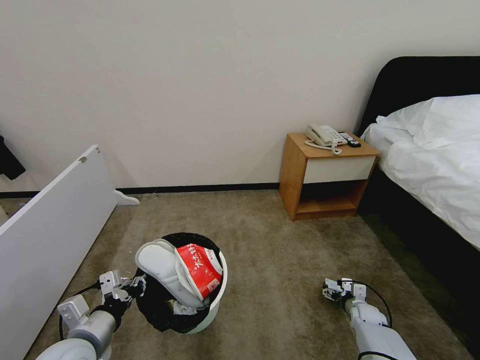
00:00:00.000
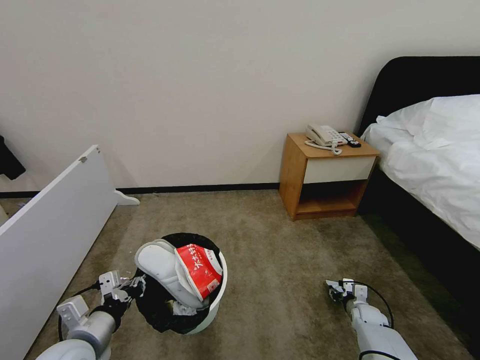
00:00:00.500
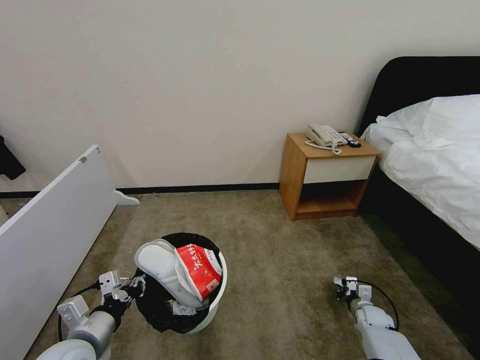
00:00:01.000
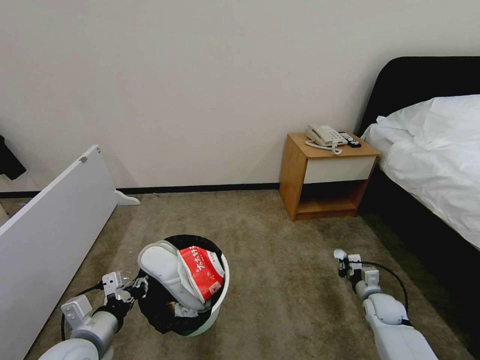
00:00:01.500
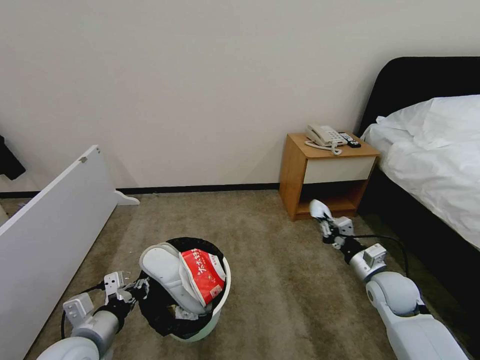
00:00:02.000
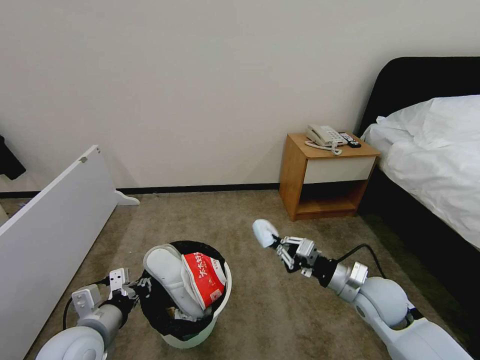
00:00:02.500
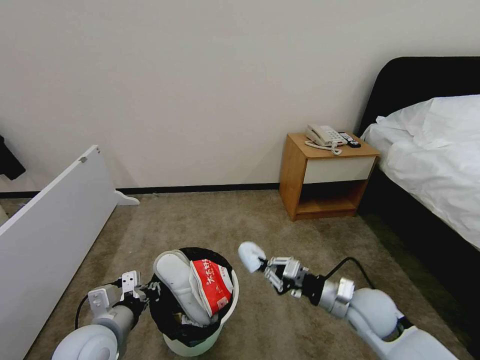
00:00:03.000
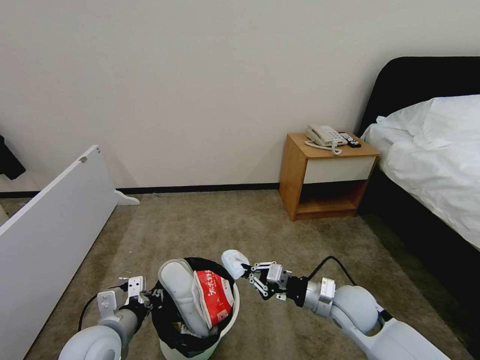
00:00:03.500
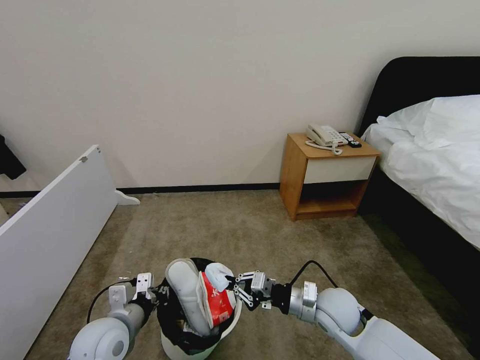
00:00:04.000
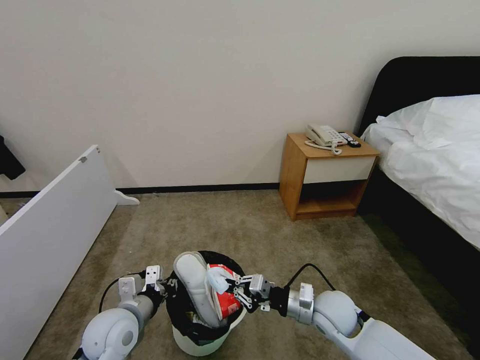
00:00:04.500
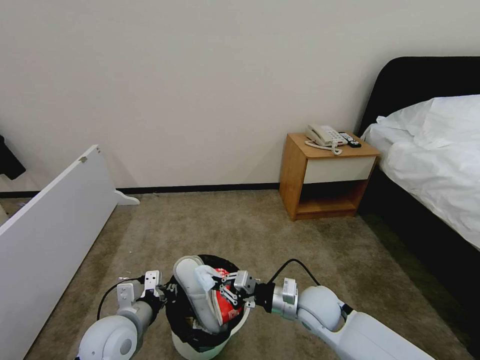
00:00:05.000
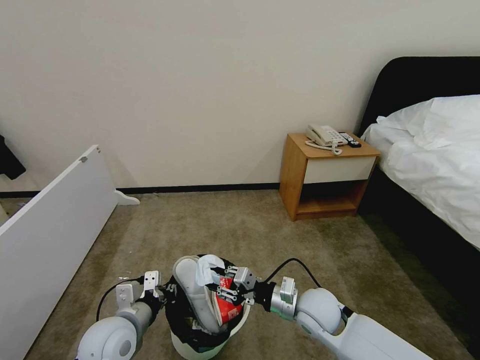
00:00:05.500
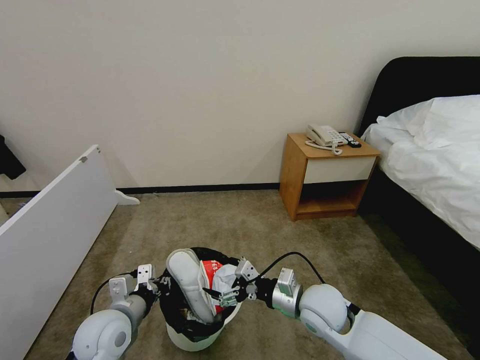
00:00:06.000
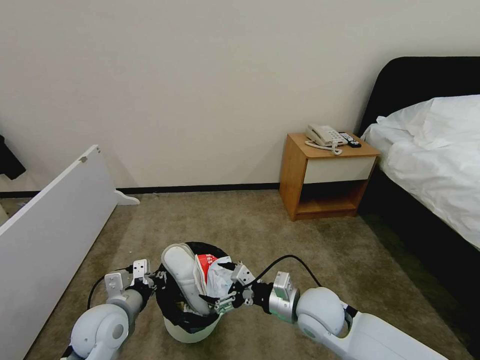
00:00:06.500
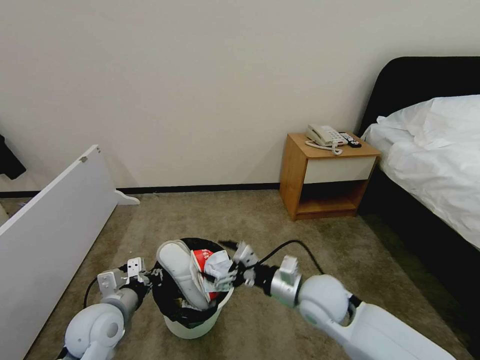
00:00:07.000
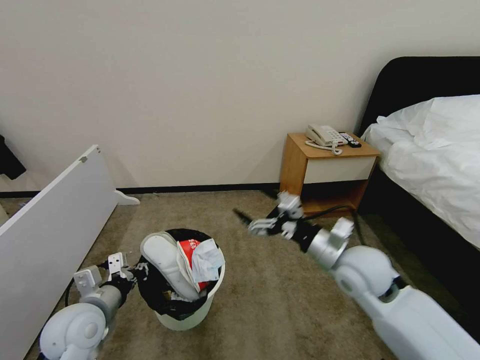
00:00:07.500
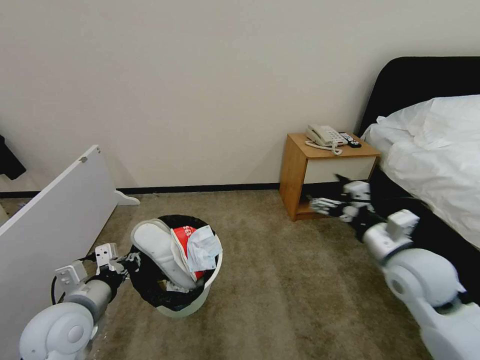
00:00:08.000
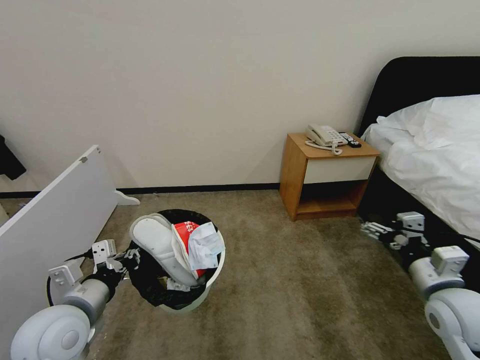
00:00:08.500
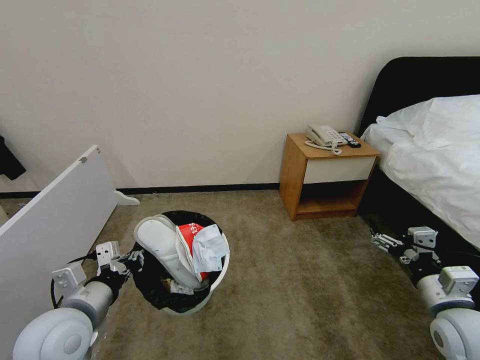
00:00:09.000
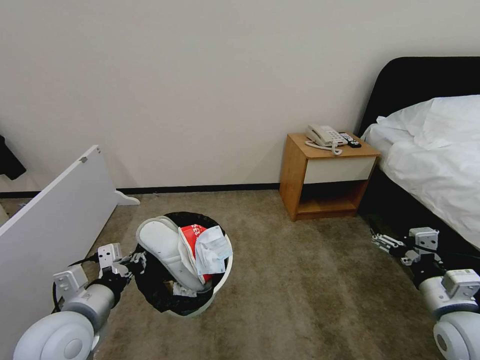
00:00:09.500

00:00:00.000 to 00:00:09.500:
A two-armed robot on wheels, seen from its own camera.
Task of the whole recording: Pick up the trash bin, then pick up the garbage from the floor and place it into the trash bin.
00:00:00.000 to 00:00:02.000: The right gripper heads upward, covering about 25 cm, and closes its fingers.
00:00:02.000 to 00:00:04.000: The right gripper travels to the left by approximately 15 cm.
00:00:04.000 to 00:00:05.500: The right gripper opens its fingers.
00:00:05.500 to 00:00:07.500: The left gripper shifts approximately 5 cm to the left, while the right gripper shifts roughly 15 cm upward, and opens.
00:00:07.500 to 00:00:09.500: The left gripper travels upward by roughly 5 cm, while the right gripper travels to the right and backward by about 20 cm.
